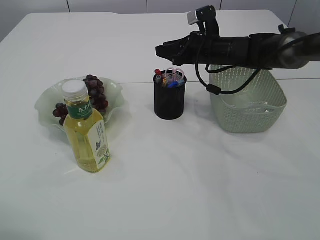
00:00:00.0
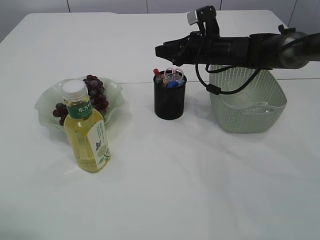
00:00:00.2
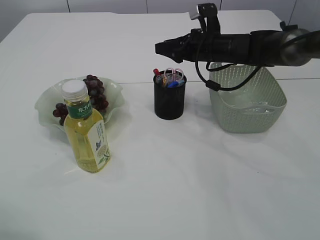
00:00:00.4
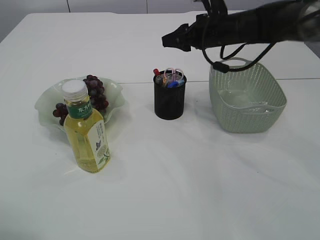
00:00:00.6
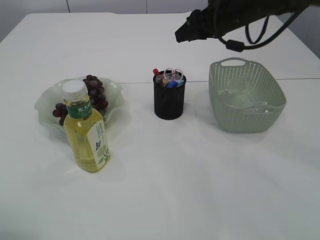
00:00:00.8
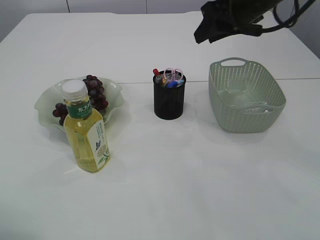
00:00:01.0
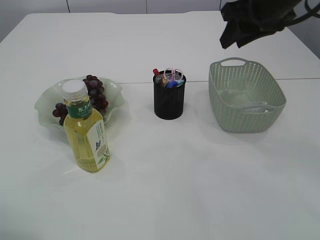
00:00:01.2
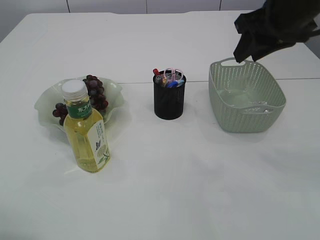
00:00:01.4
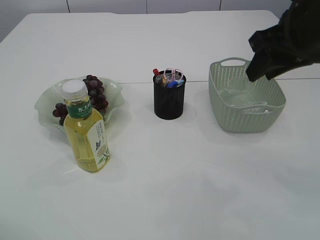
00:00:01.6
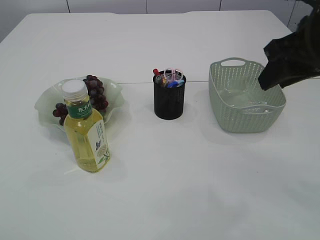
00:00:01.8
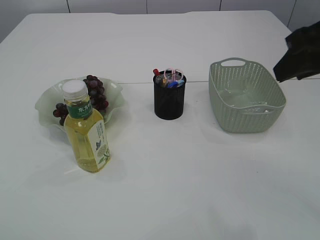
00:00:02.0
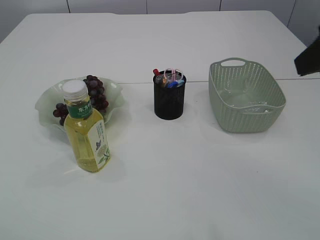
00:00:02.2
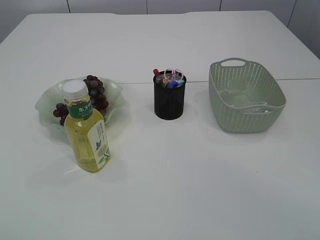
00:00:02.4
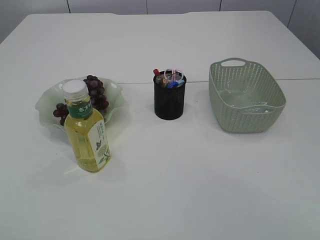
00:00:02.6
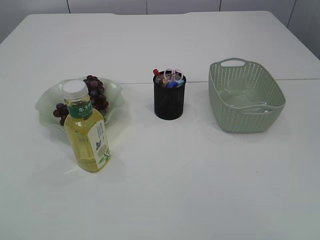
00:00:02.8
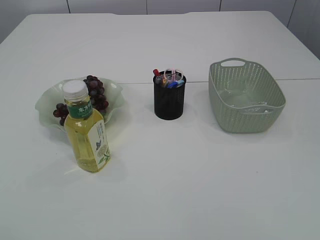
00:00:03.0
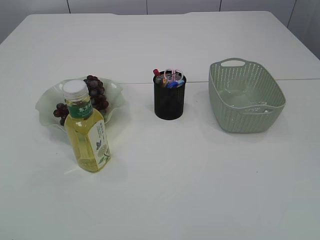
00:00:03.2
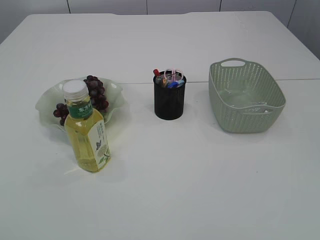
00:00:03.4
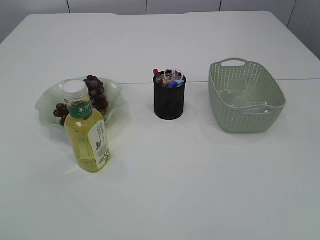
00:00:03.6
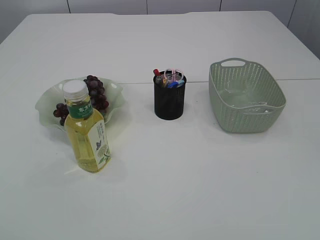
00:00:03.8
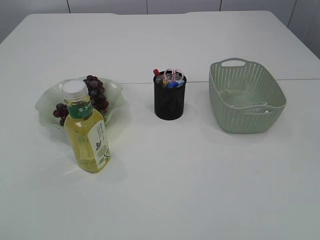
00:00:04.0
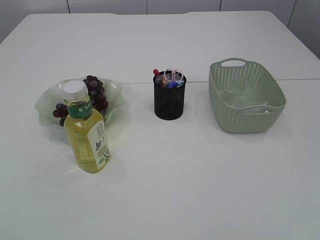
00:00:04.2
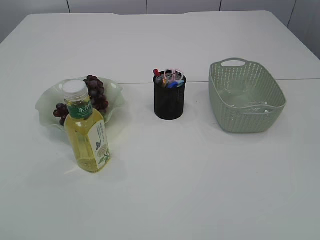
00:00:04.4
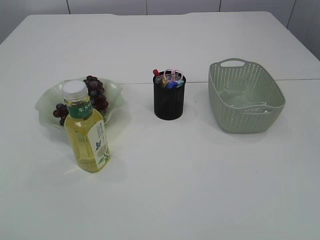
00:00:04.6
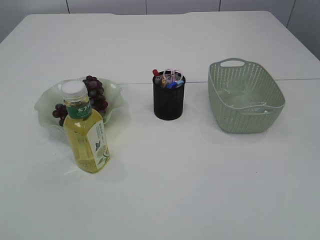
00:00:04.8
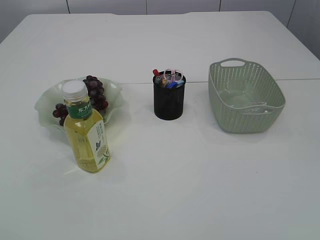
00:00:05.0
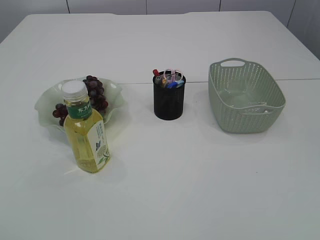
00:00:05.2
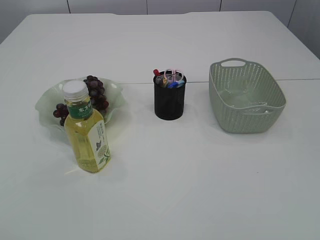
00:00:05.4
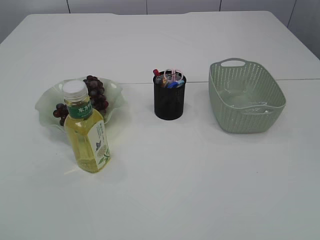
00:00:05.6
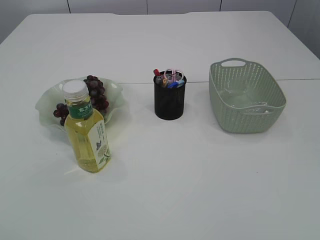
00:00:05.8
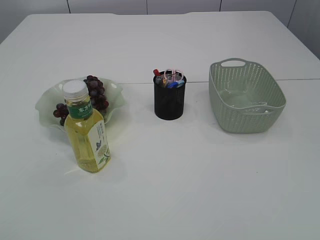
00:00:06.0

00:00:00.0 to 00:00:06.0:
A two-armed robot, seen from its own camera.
00:00:00.0 to 00:00:01.6: The right gripper heads backward and upward, covering approximately 25 cm.
00:00:01.6 to 00:00:03.0: The right gripper travels backward by some 30 cm.
